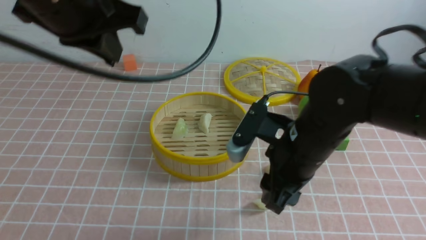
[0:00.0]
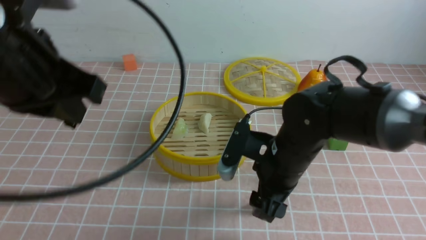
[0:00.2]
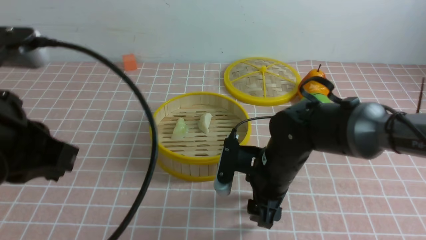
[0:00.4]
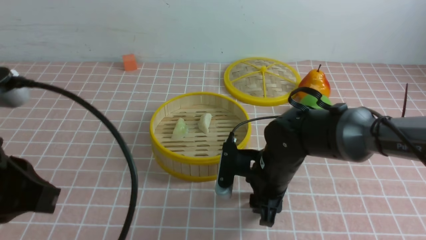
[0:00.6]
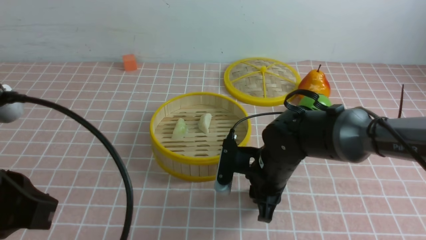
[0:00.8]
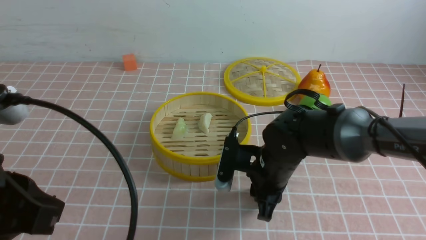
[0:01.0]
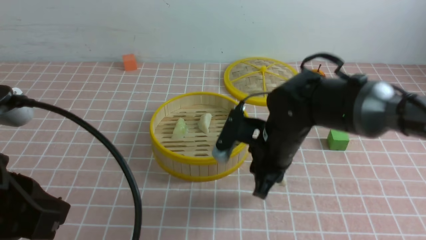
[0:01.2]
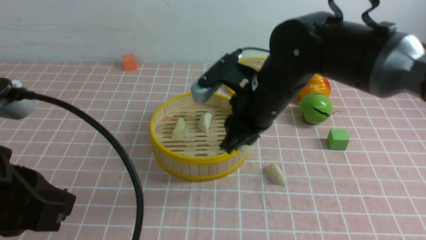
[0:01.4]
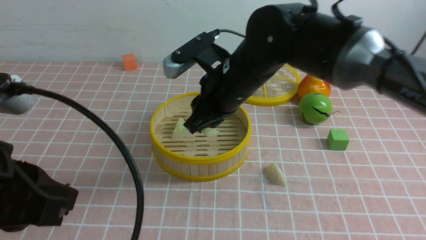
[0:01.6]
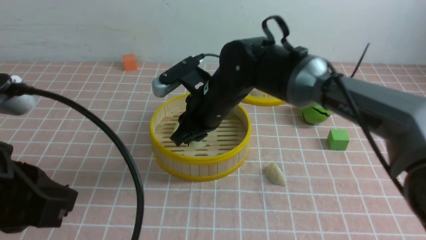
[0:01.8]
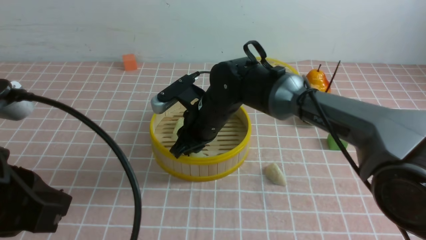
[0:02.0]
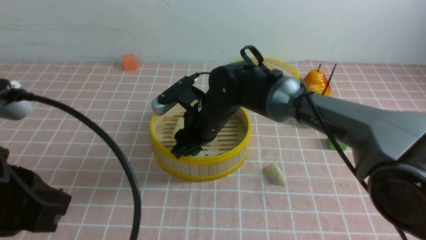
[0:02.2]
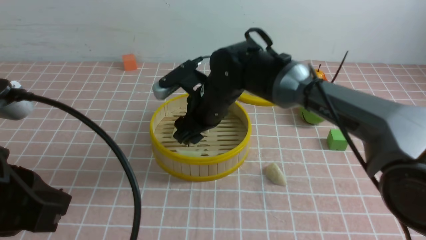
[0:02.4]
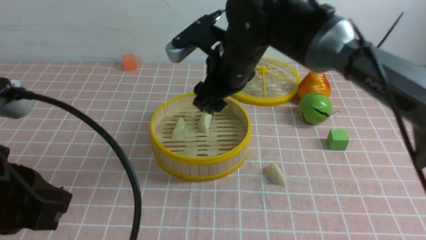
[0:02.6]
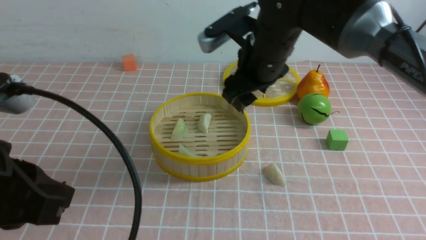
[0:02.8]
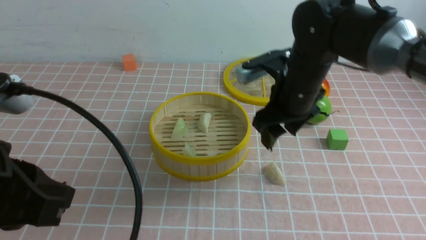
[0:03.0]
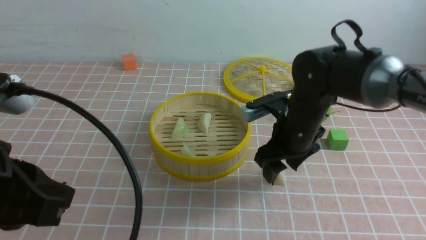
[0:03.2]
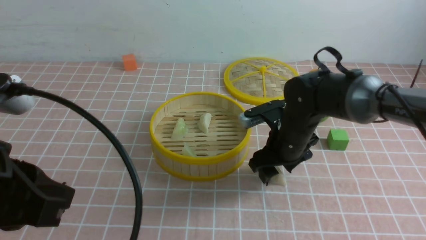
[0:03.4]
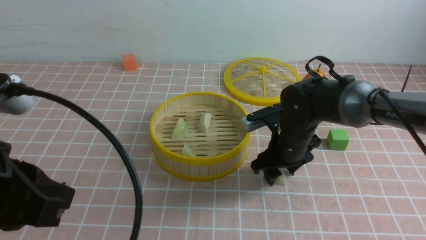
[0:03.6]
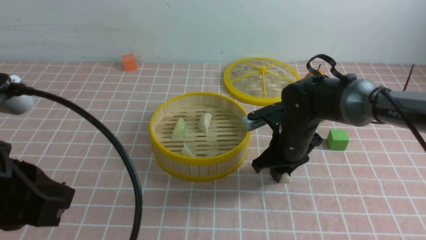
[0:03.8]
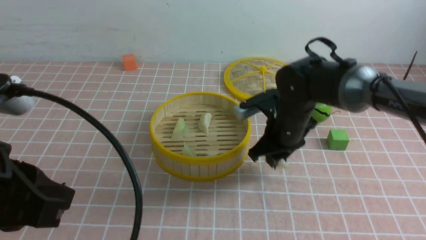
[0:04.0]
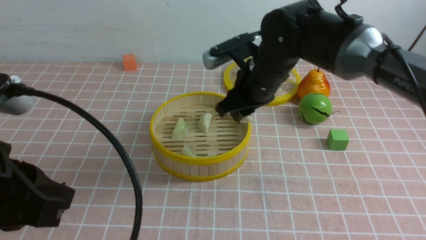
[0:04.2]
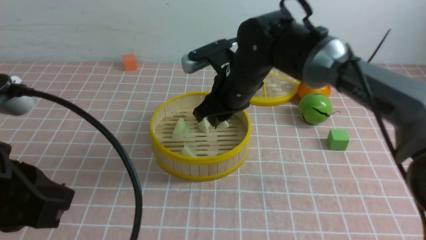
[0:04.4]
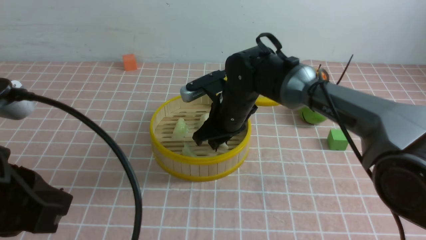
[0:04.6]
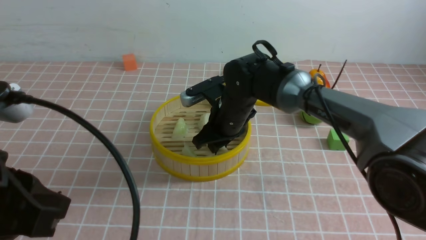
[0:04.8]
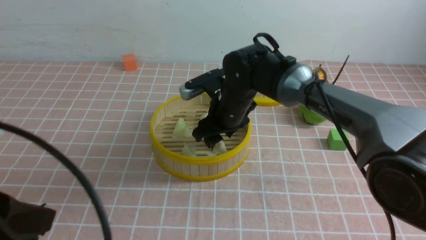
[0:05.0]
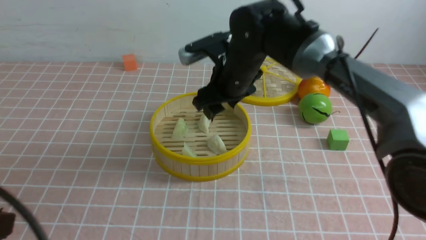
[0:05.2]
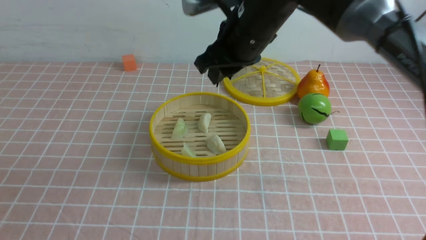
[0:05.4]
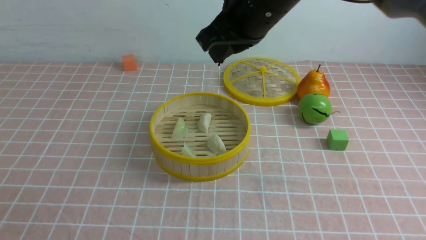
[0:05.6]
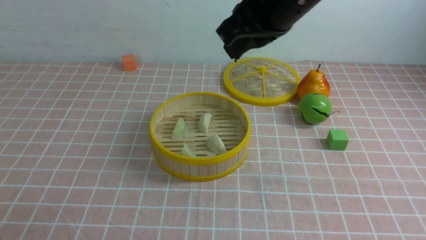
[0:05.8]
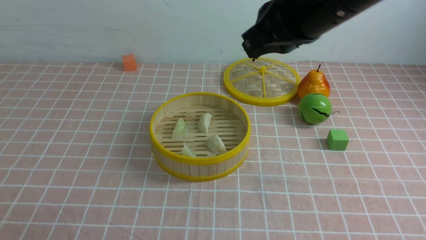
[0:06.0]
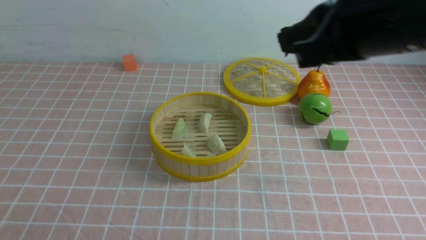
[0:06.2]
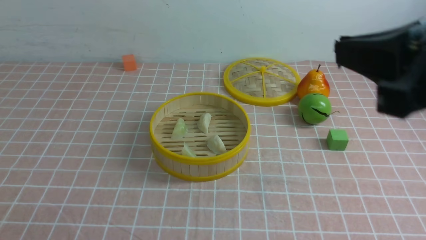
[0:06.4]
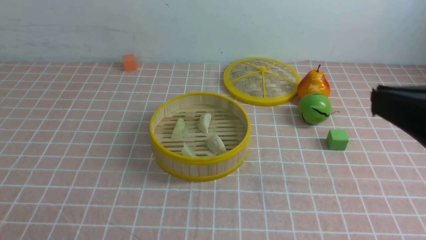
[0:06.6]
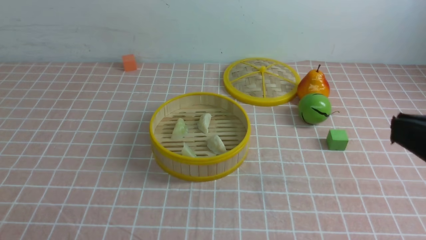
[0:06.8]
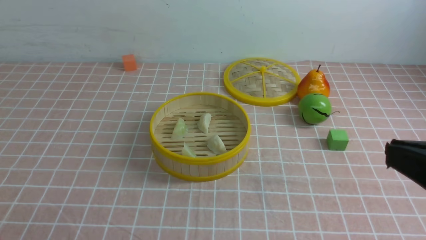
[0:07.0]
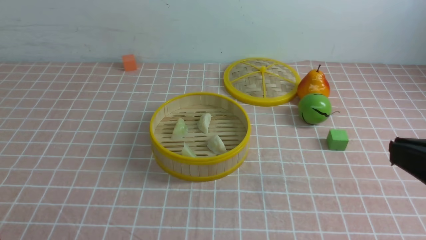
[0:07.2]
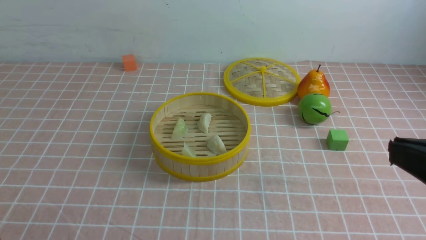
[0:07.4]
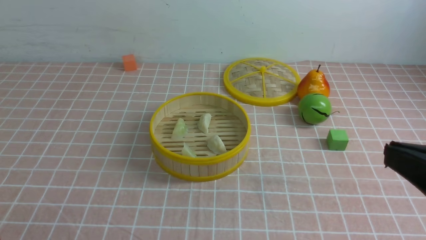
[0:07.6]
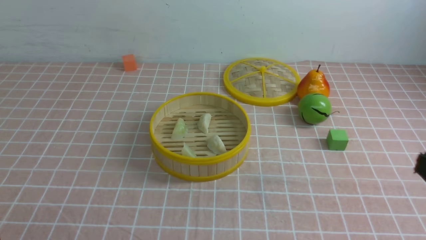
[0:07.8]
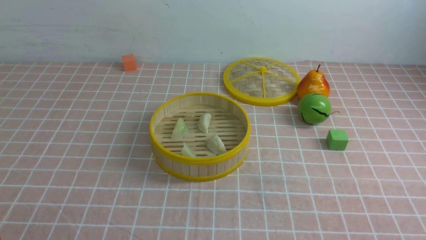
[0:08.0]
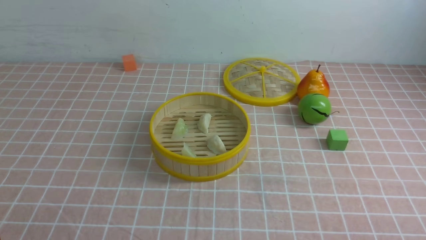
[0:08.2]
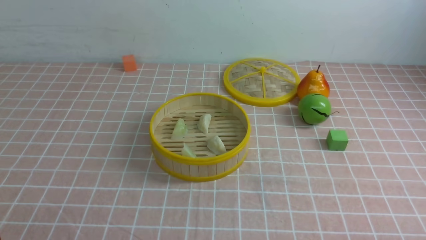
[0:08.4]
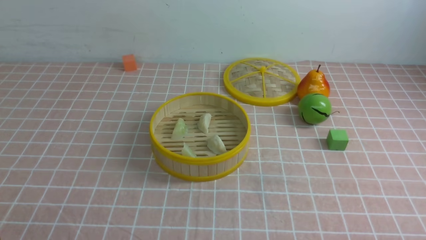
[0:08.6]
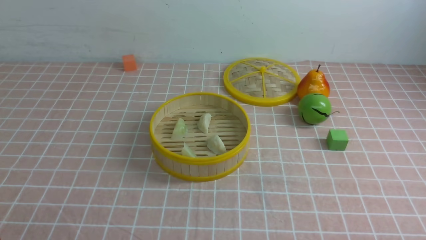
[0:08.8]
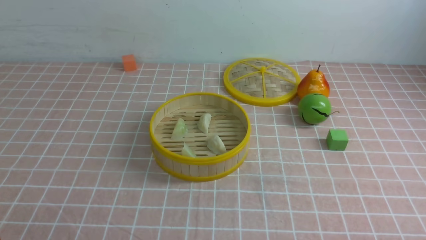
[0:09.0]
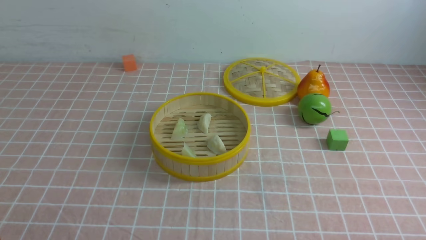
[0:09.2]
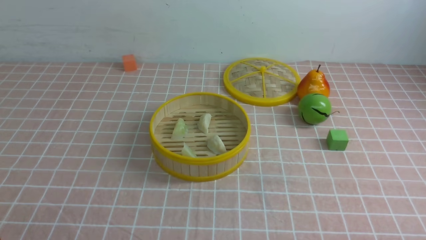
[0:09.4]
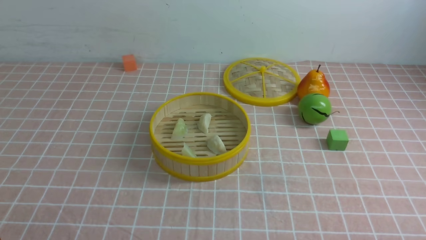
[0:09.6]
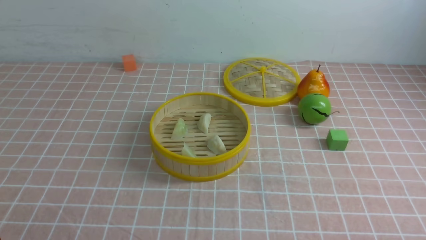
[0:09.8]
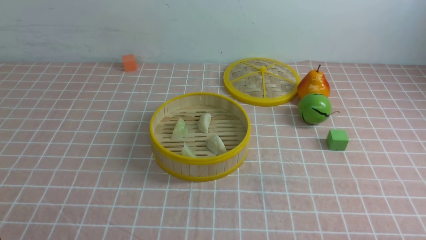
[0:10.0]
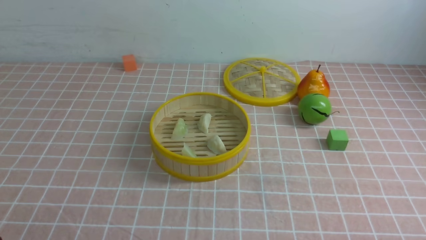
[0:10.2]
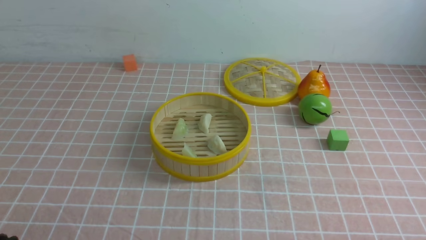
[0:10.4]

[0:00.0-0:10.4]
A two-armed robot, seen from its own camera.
Task of the whole recording: put the dumplings into the steamer on the table with the pink tablecloth.
Step, 0:00.0 to 0:01.0: use the right arm to grab a dumpling.
Step, 0:01.2 to 0:02.2: use the right arm to put the dumpling into the steamer.
Step, 0:02.6 to 0:03.8: use the right arm to grab a dumpling.
Step, 0:04.0 to 0:04.8: use the right arm to put the dumpling into the steamer.
0:00.0 to 0:01.4: The left gripper is displaced backward and downward by approximately 20 cm. The right gripper shifts roughly 5 cm forward, goes downward and returns, roughly 10 cm each way, and opens, then closes again.
0:01.4 to 0:03.0: The right gripper is displaced forward by roughly 5 cm, travels to the left and back again, approximately 5 cm each way, and opens.
0:03.0 to 0:04.4: The right gripper travels downward and back again, approximately 10 cm each way, and closes.
0:04.4 to 0:06.0: The left gripper shifts roughly 15 cm backward, downward and to the left. The right gripper shifts some 20 cm upward and backward, and closes.
0:06.0 to 0:07.4: The right gripper heads backward, to the right and downward, covering roughly 25 cm.
0:07.4 to 0:09.0: The right gripper shifts about 20 cm downward and to the right.
0:09.0 to 0:10.4: Neither gripper changes place.

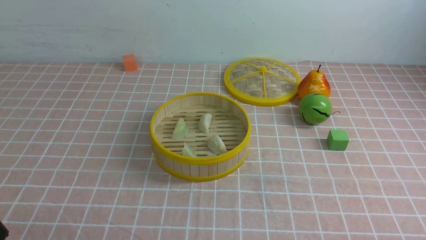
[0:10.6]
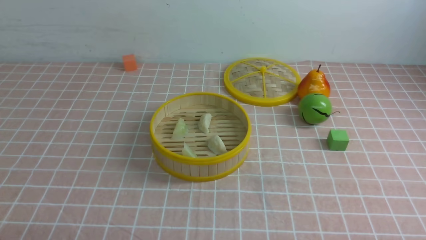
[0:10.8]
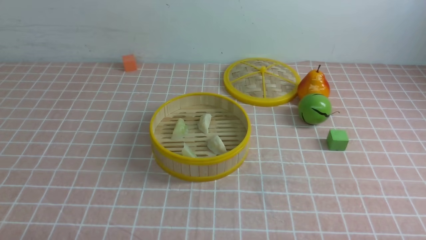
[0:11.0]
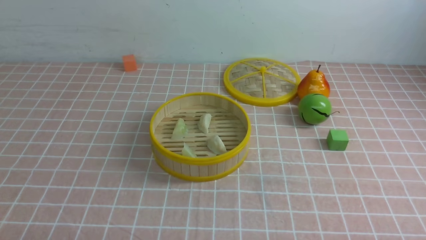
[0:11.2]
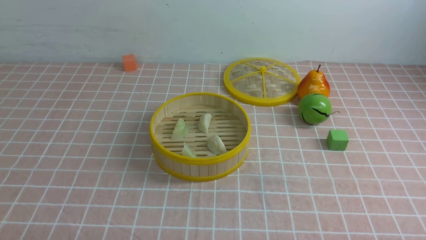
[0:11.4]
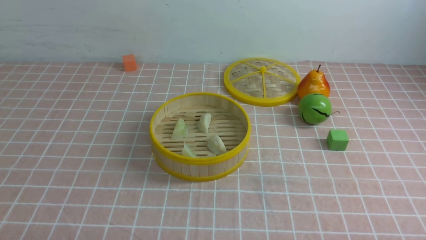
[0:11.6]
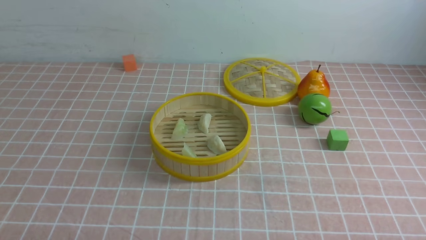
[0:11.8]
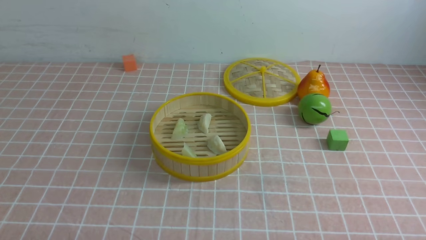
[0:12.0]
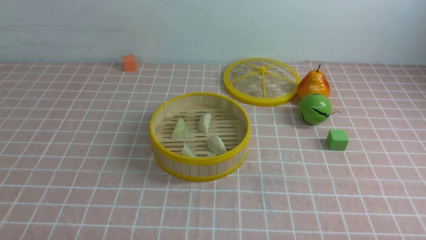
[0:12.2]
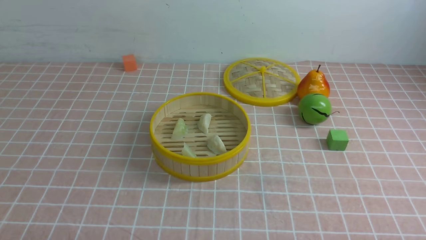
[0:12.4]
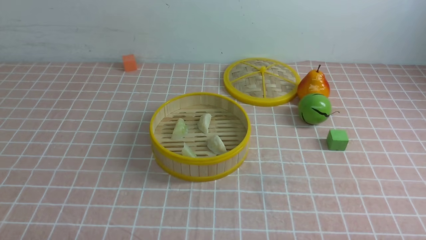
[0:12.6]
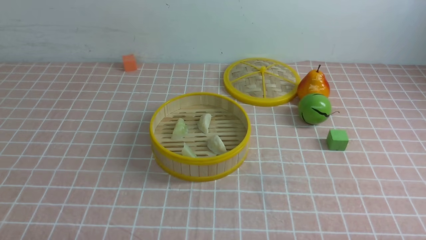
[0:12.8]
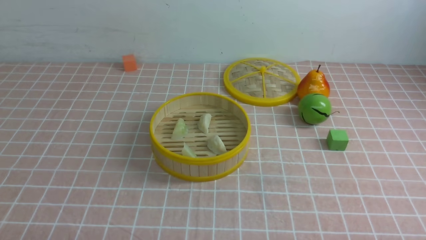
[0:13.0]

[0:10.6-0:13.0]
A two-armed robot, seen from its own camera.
Task of the whole recording: put the dumplings into the steamer on the table with the pink tablecloth.
0:11.8 to 0:13.0: Both grippers stay about where they are.

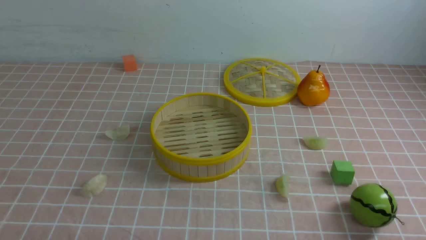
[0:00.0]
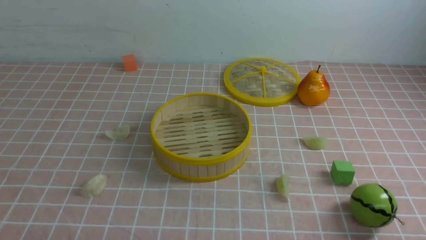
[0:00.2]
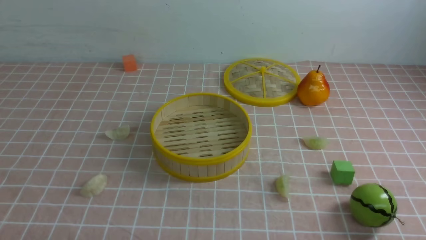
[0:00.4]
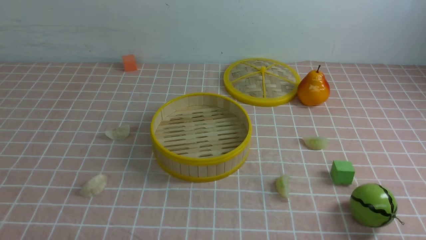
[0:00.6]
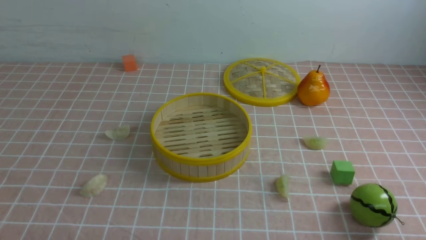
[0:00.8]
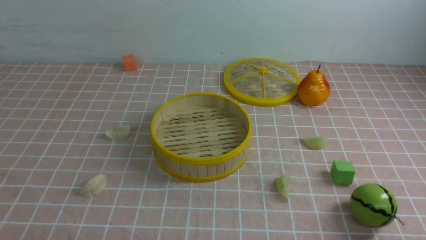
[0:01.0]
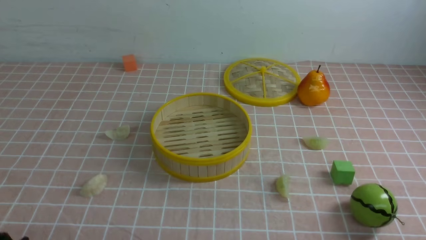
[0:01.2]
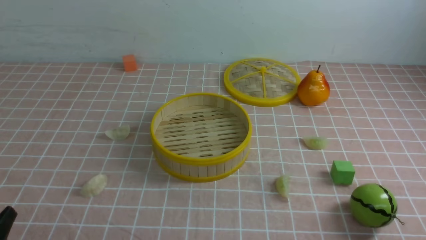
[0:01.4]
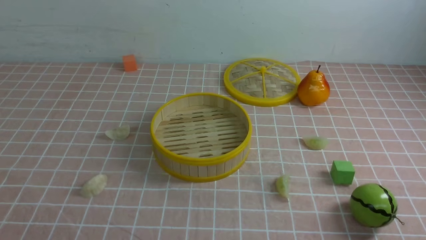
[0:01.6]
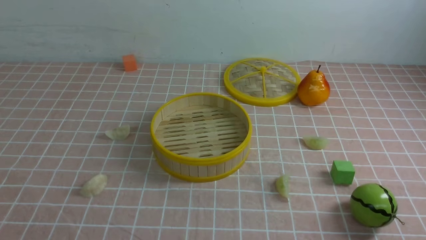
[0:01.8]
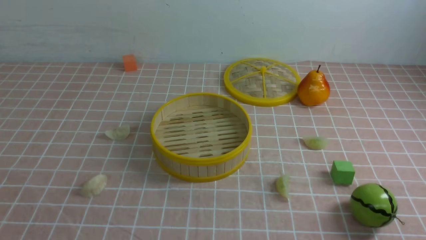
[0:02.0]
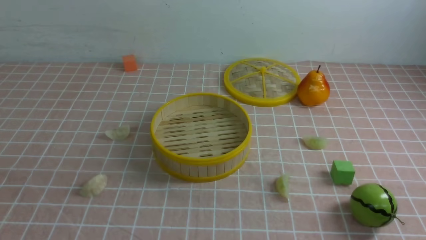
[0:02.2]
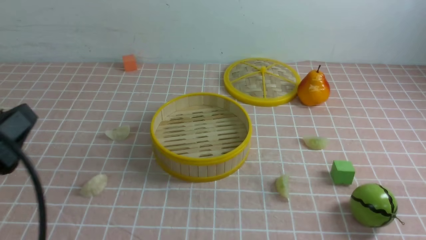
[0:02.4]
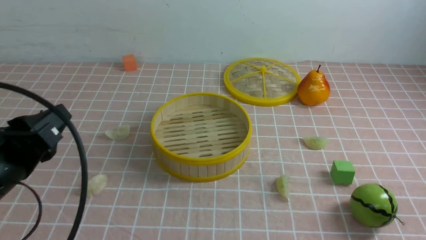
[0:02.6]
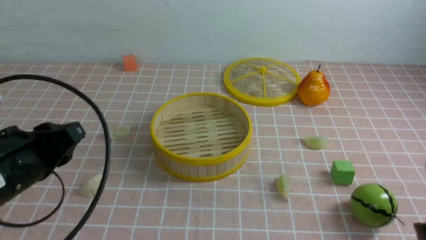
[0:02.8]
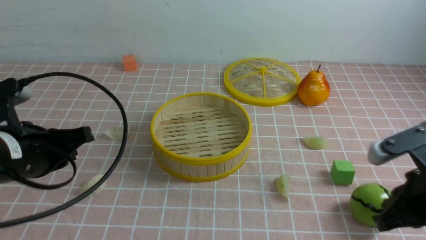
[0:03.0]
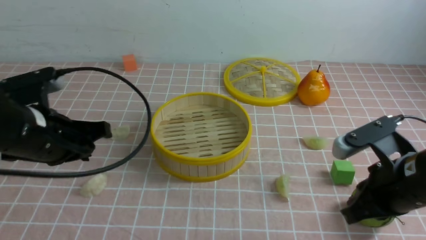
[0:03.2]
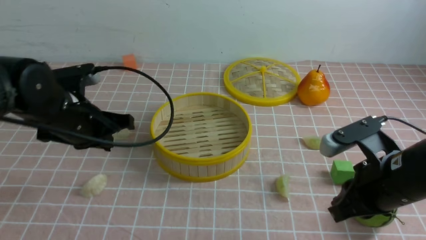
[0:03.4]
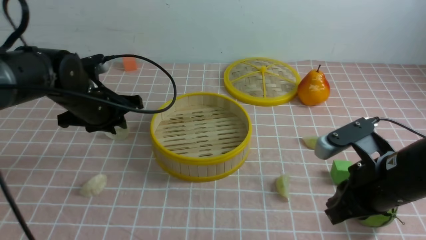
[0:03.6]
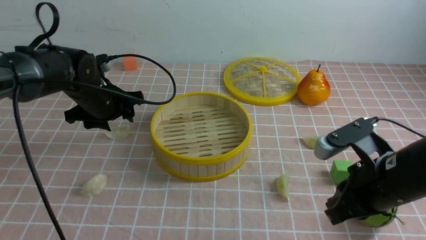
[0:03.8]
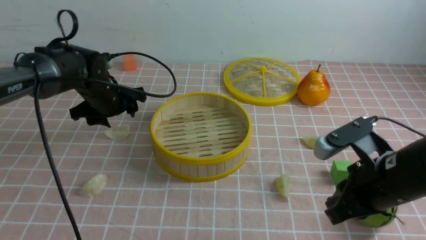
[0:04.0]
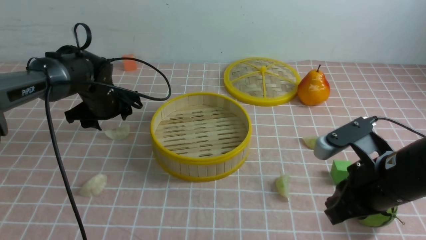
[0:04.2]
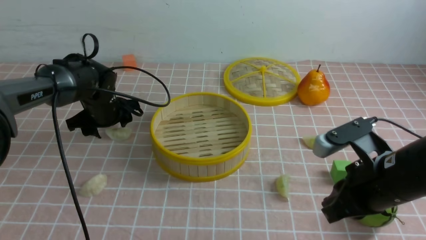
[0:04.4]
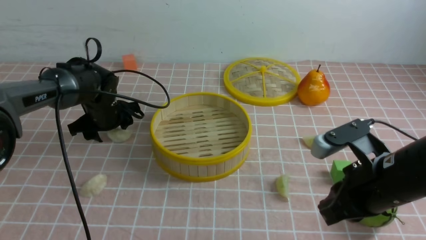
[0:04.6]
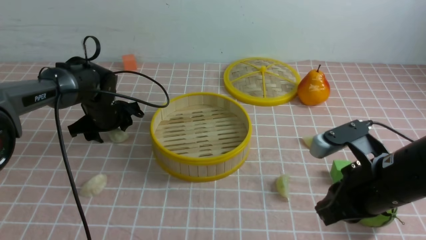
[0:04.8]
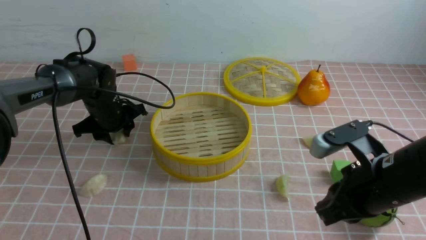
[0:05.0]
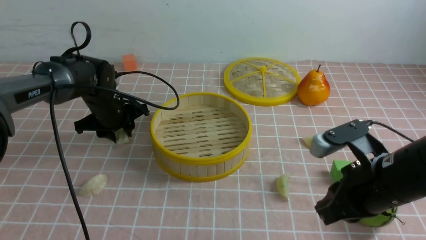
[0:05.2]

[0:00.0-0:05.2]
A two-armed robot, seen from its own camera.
Task of the whole recording: put the dumplings into the steamer on the table with the pink tablecloth.
0:01.8 to 0:03.4: The right gripper moves forward and to the left, some 20 cm, and closes up. The left gripper heads forward, covering approximately 30 cm.
0:03.4 to 0:05.2: The left gripper goes some 15 cm forward and downward, and opens its fingers.
